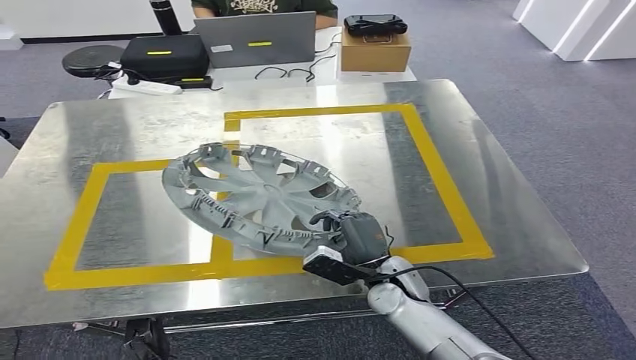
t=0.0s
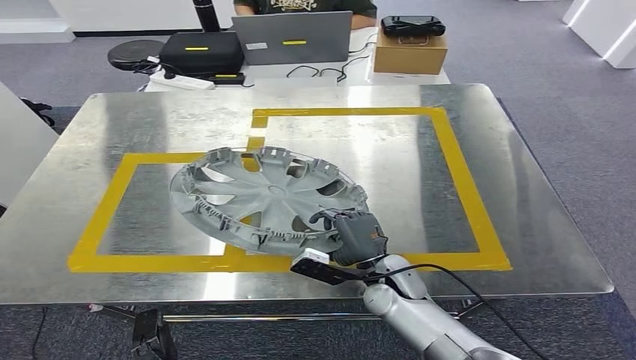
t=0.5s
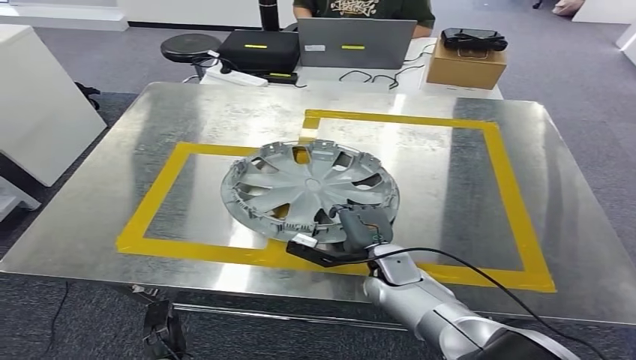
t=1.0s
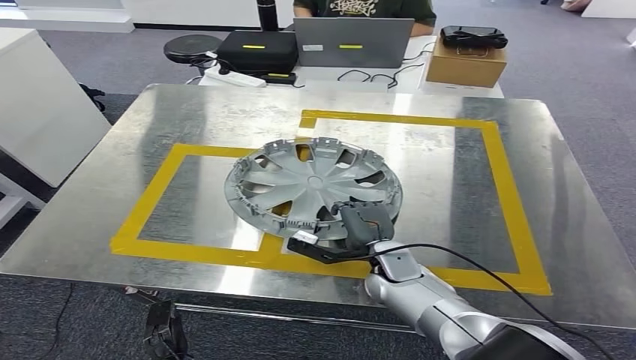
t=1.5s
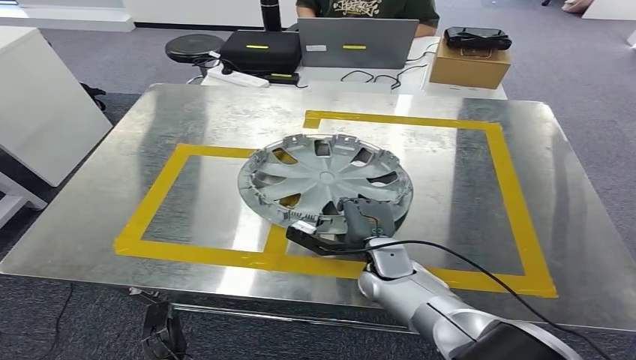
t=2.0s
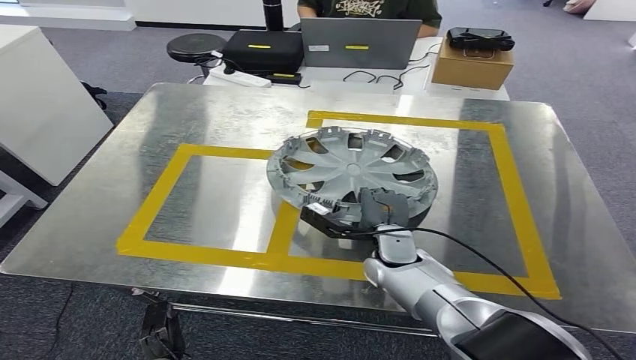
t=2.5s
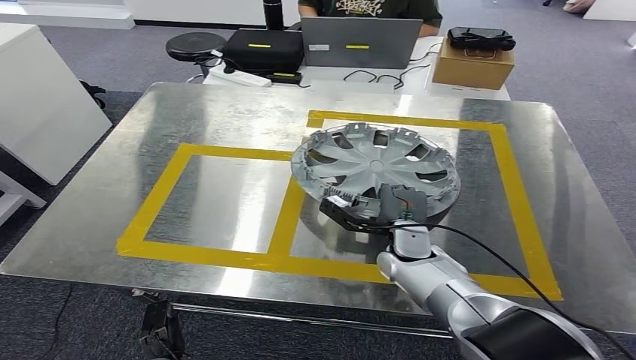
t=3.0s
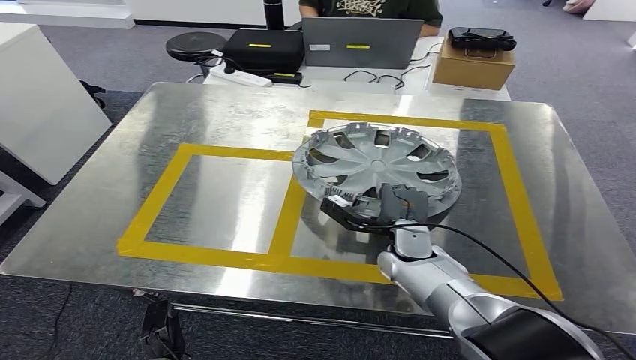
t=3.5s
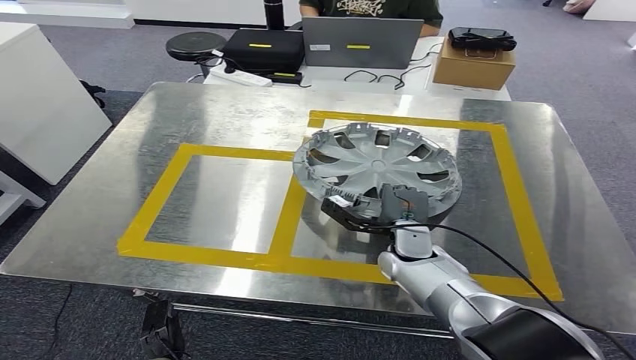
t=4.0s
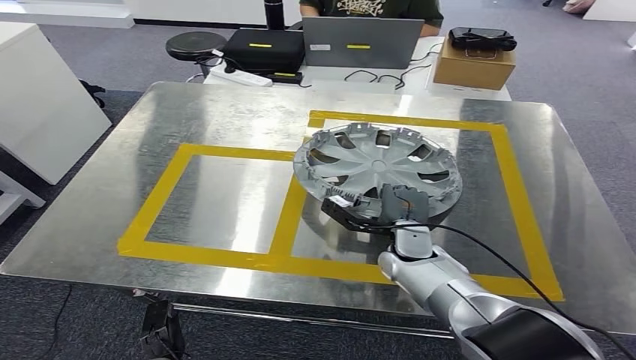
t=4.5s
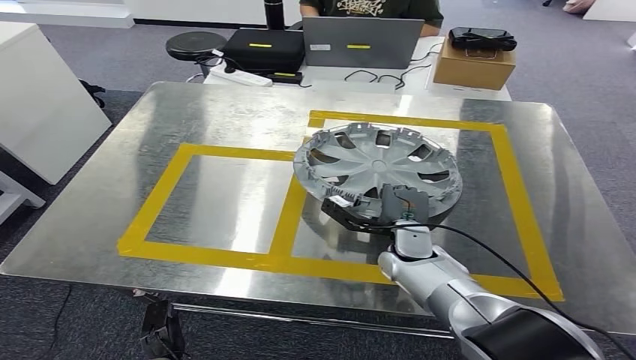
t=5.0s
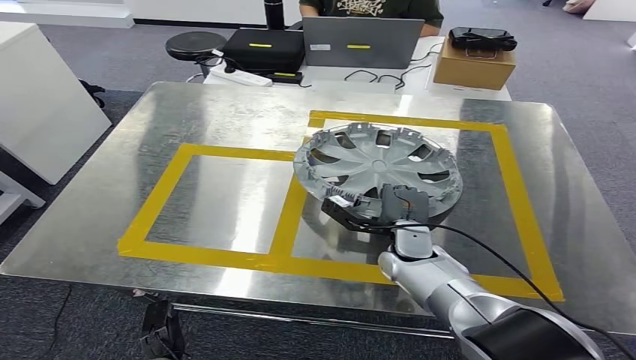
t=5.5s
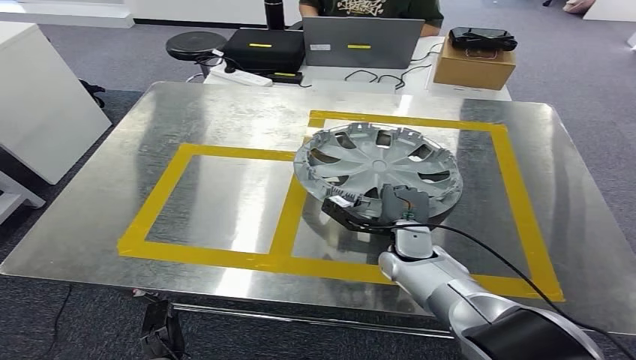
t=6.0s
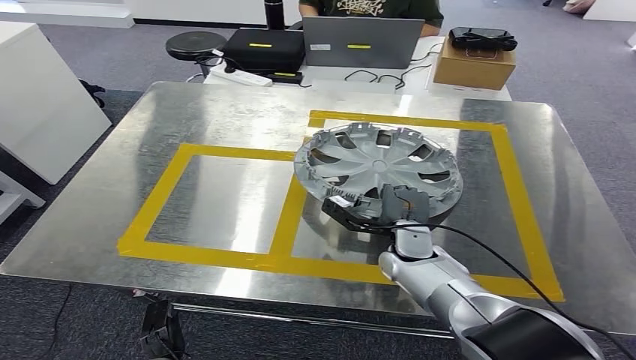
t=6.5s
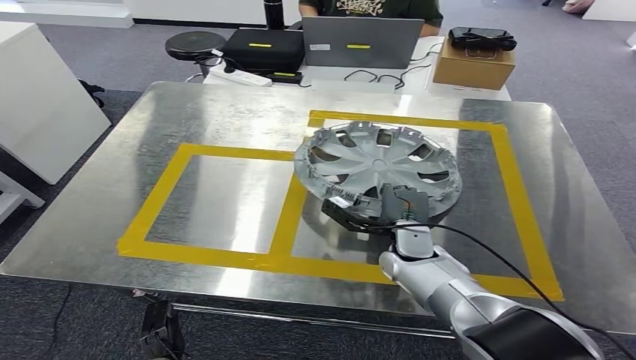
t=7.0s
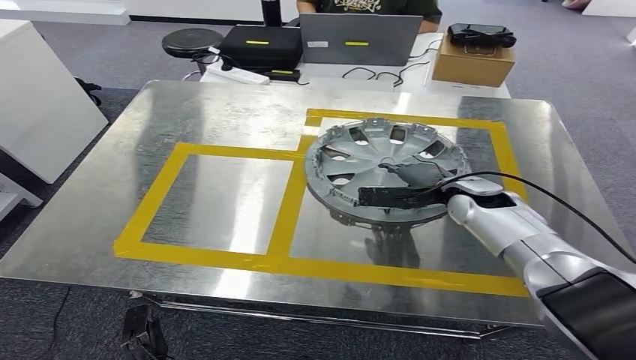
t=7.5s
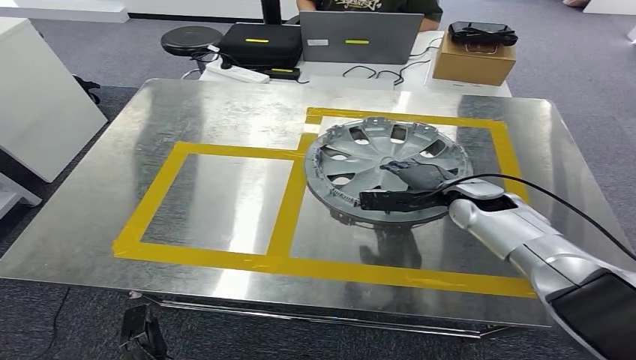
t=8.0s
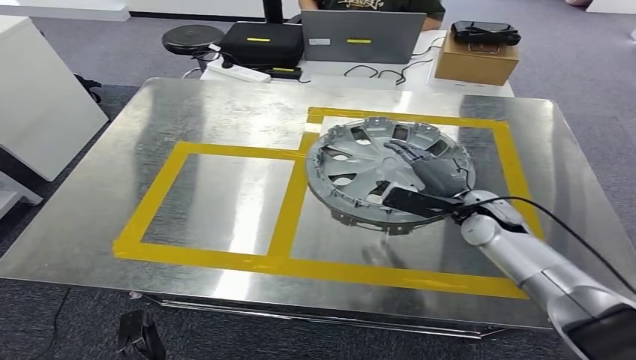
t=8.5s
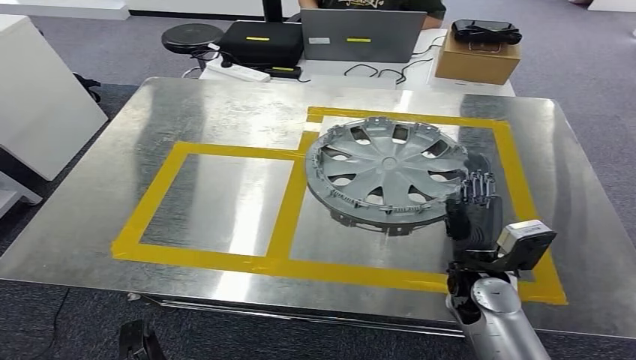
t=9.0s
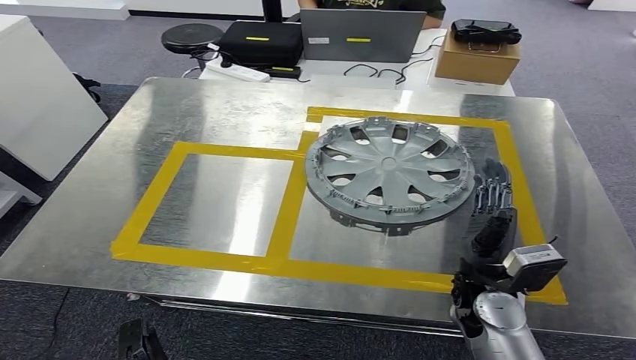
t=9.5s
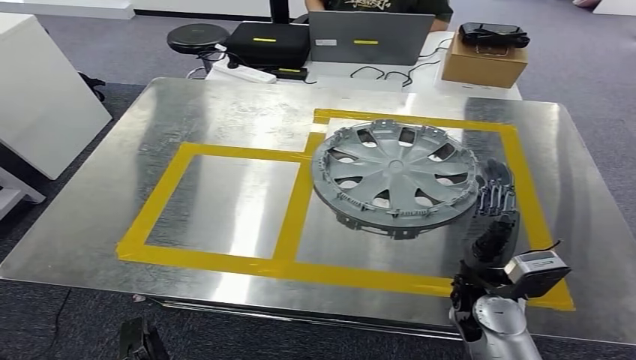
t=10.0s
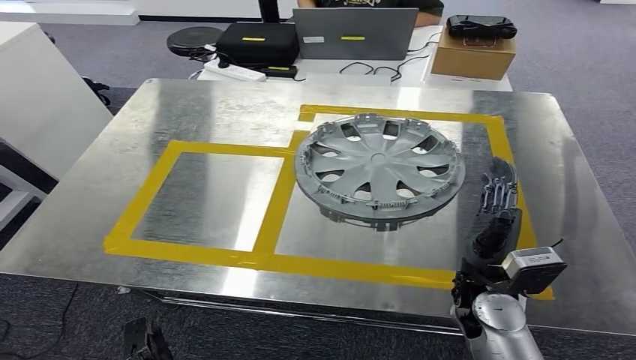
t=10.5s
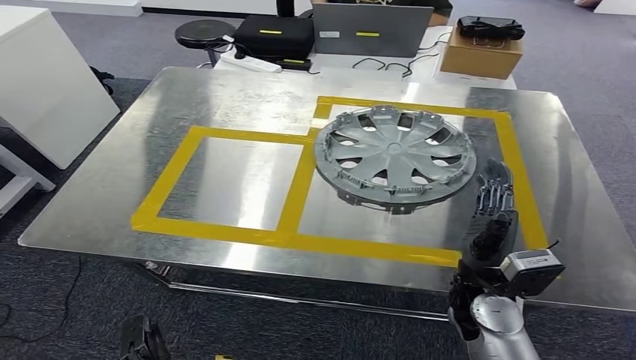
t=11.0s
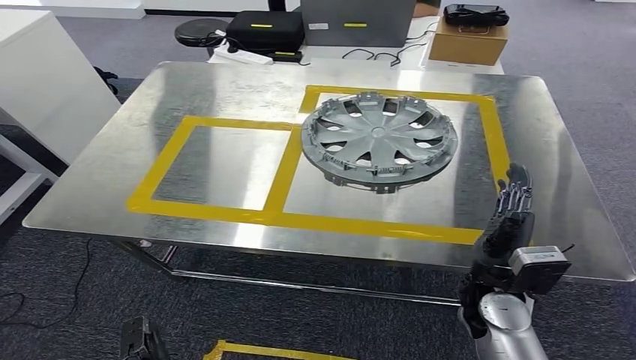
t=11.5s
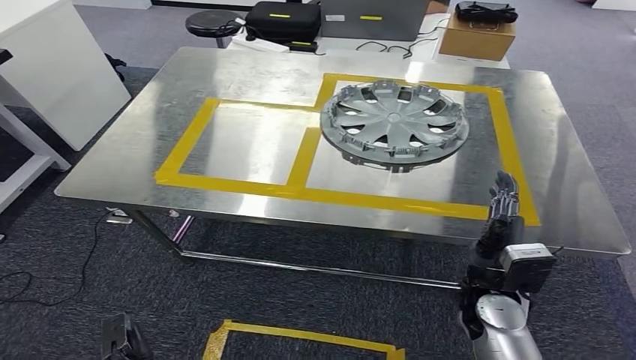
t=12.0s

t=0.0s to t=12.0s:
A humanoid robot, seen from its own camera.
Step, t=0.0s to t=8.5s: Insert the small component into the corresponding slot on the workbench.
t=4.0s to t=6.0s: Both hands stay about where they are.

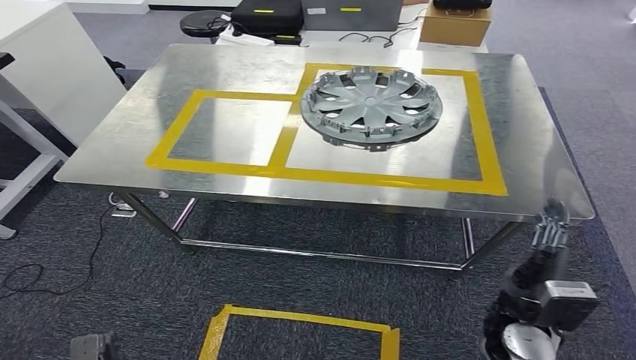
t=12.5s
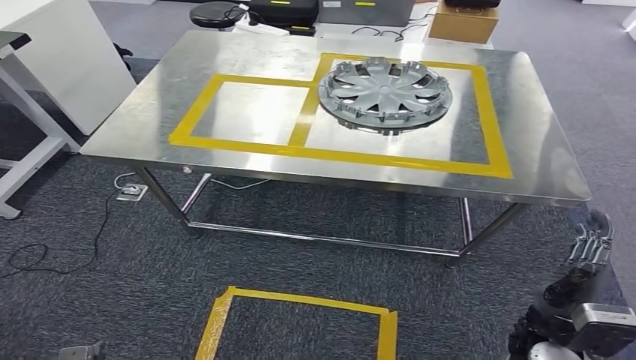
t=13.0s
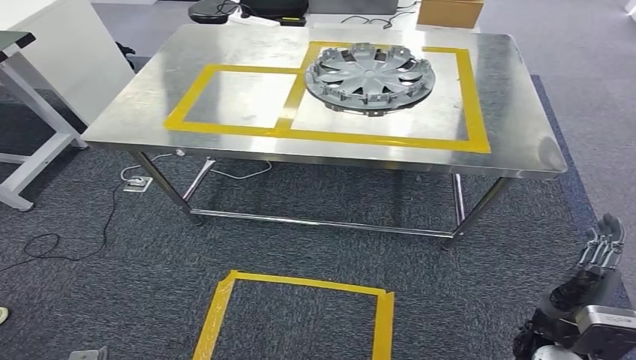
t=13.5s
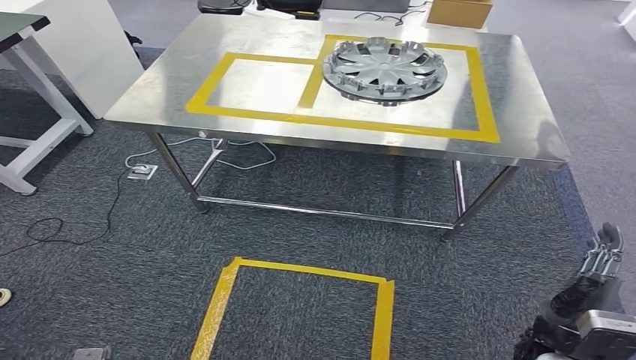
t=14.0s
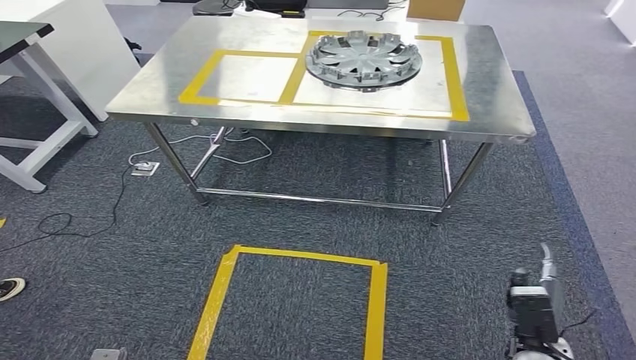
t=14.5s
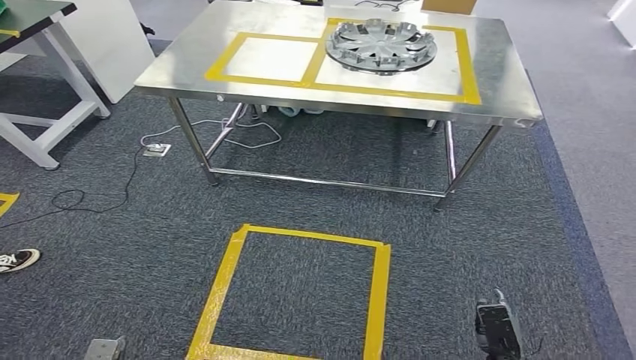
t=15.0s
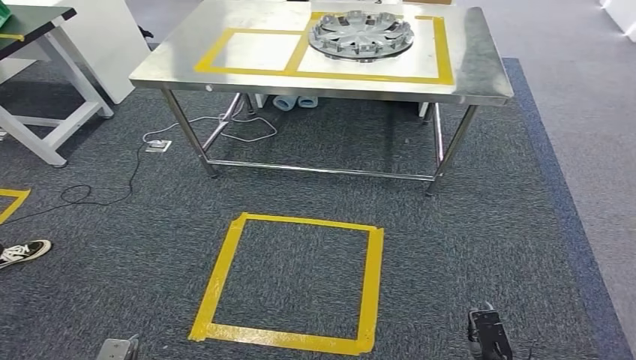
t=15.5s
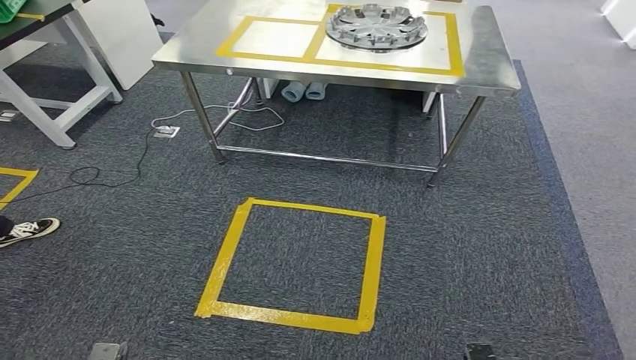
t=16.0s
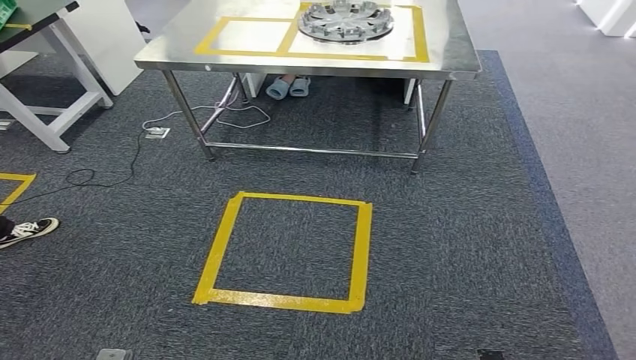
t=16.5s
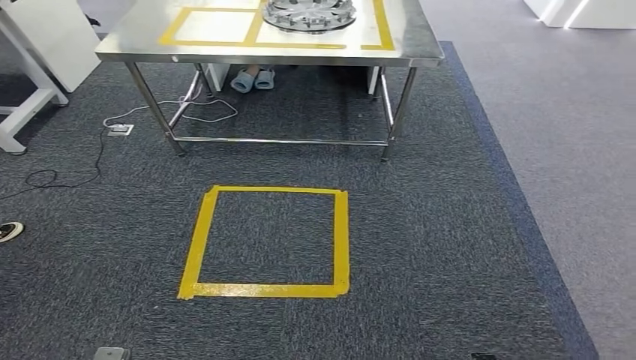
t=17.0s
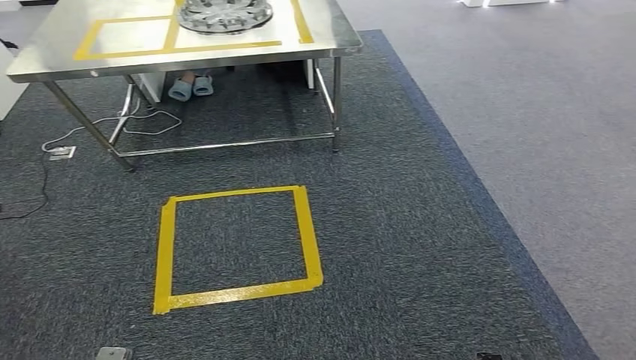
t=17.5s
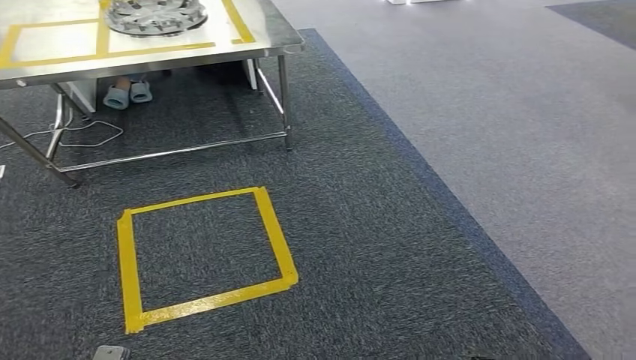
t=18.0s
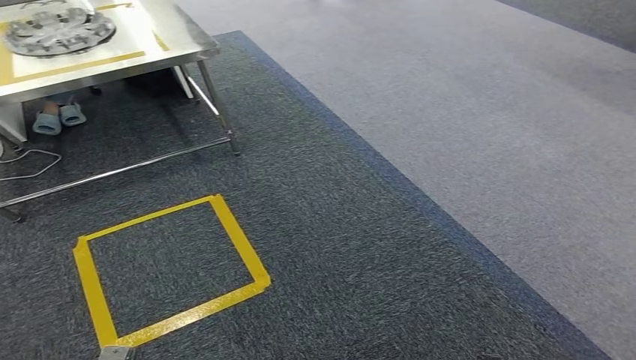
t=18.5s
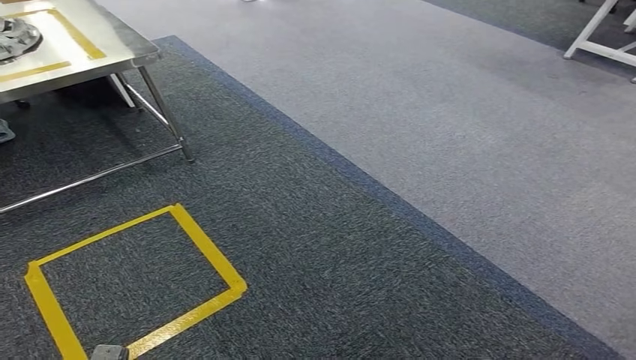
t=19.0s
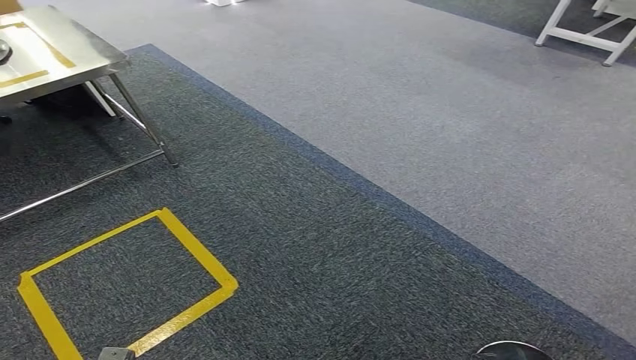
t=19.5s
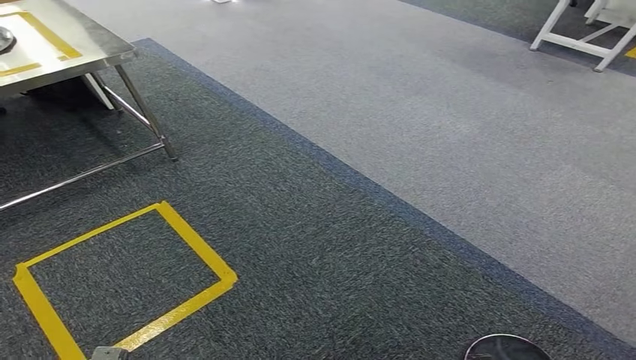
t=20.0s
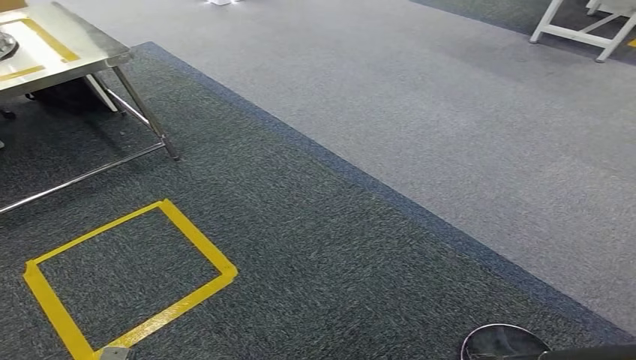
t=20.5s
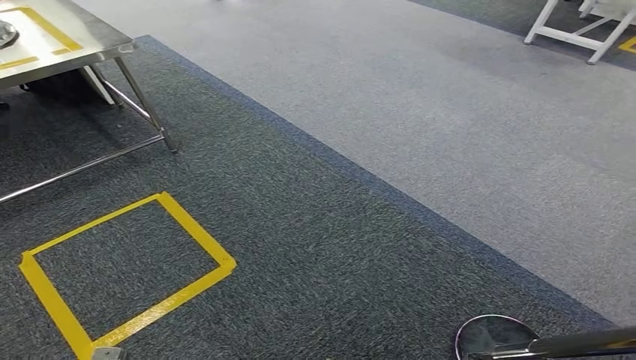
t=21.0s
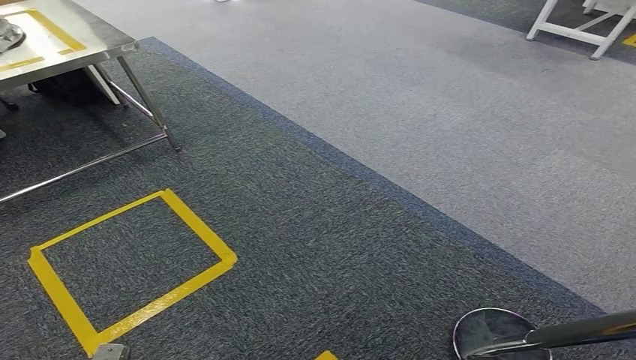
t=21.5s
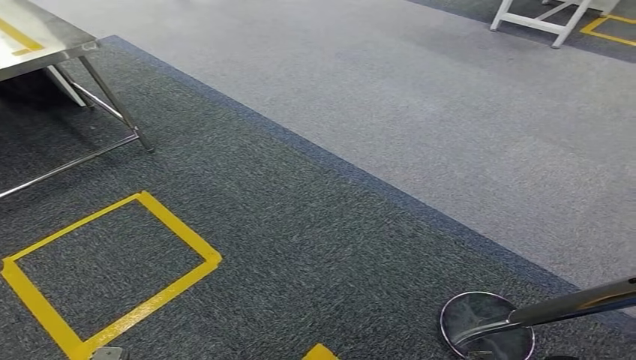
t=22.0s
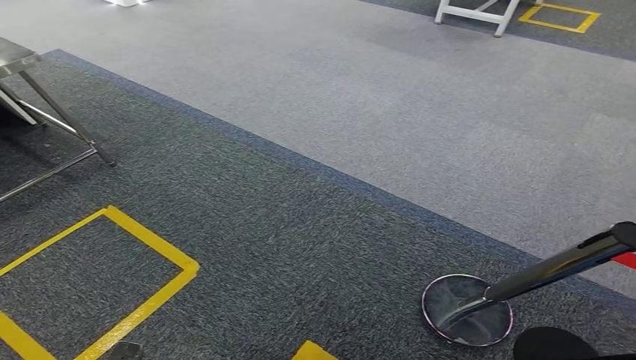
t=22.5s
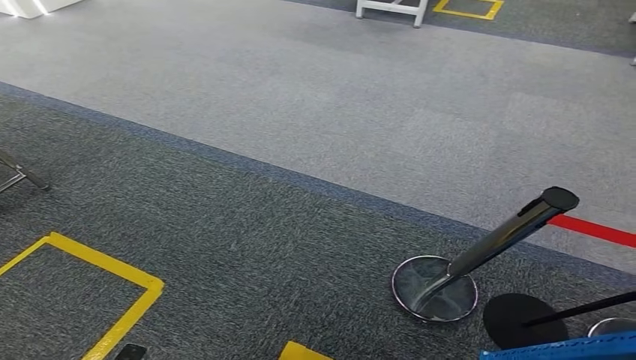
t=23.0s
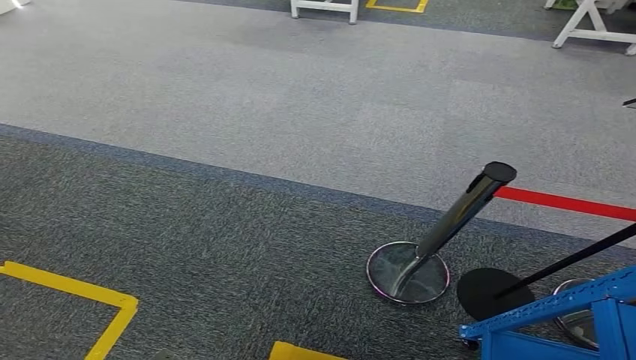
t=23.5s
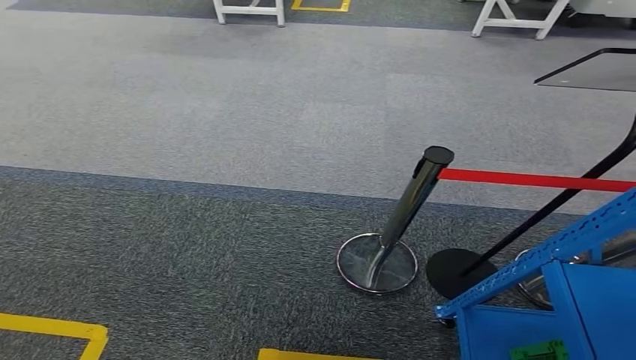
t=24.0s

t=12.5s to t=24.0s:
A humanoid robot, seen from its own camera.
t=20.0s to t=22.0s: The two hands keep their place.
